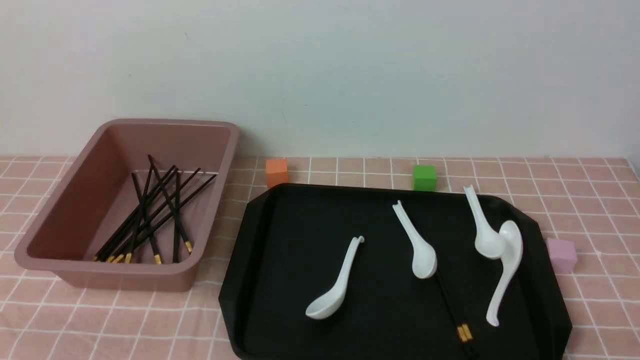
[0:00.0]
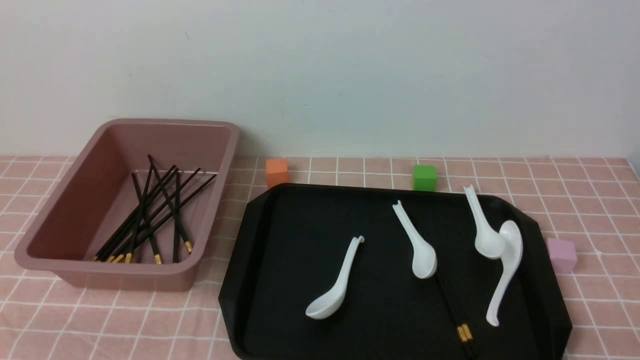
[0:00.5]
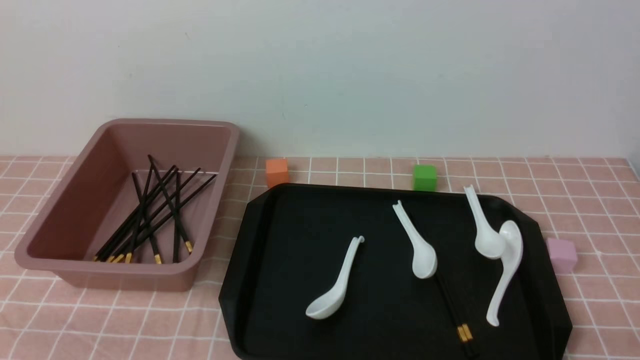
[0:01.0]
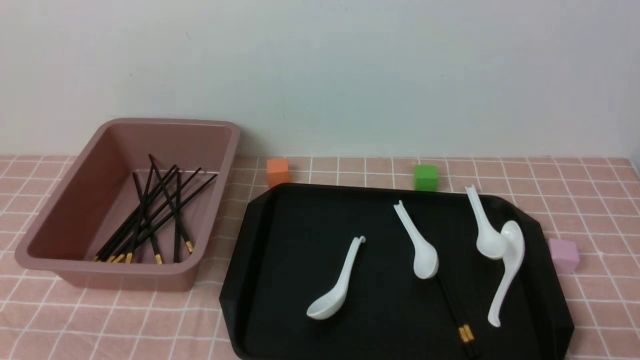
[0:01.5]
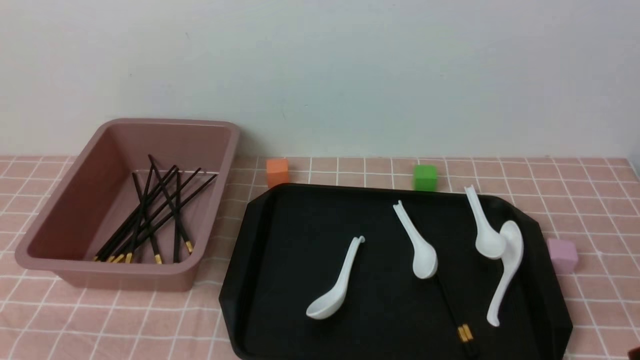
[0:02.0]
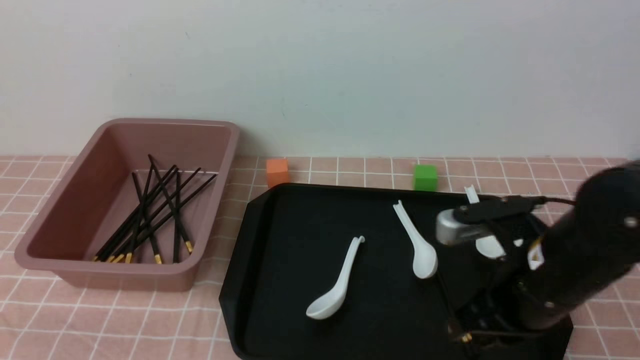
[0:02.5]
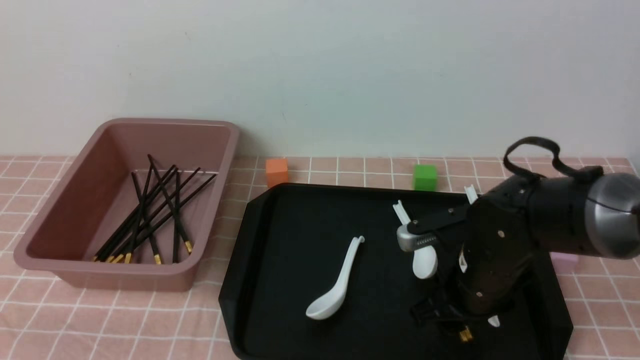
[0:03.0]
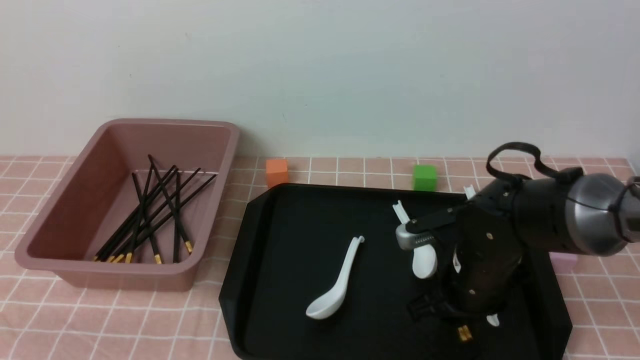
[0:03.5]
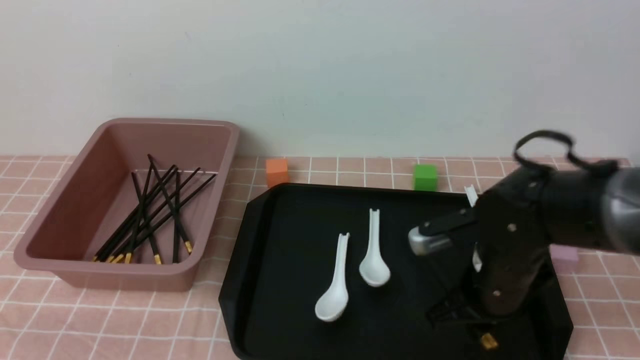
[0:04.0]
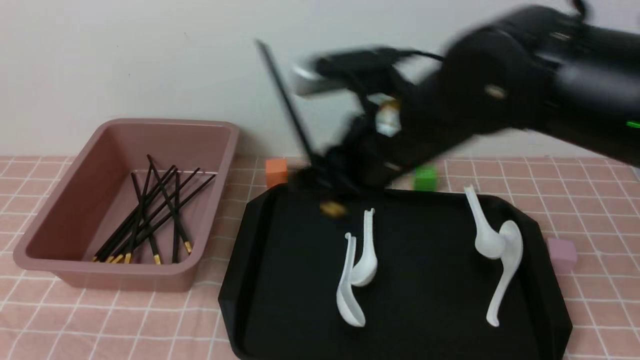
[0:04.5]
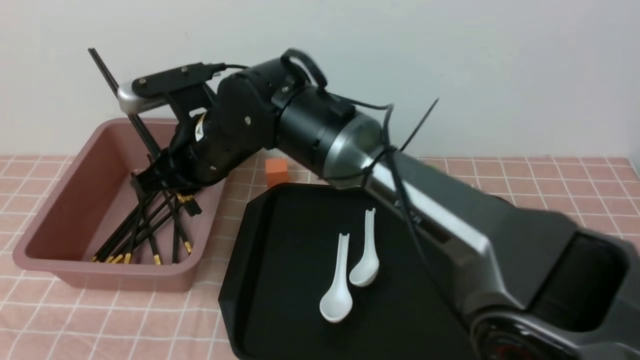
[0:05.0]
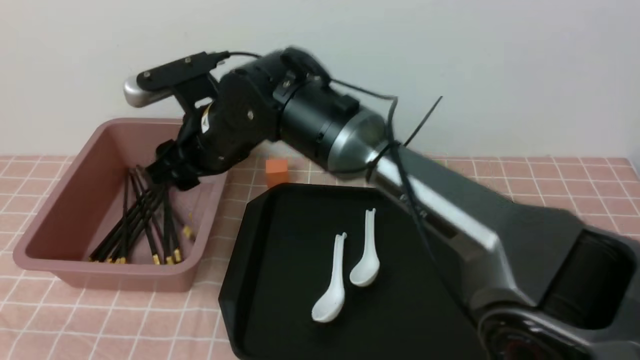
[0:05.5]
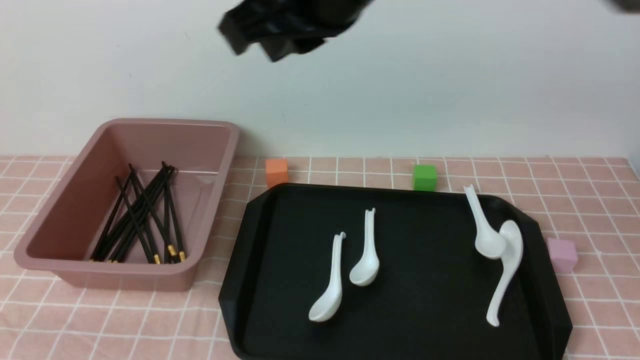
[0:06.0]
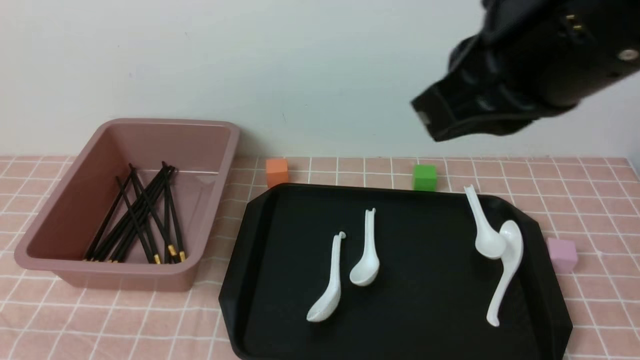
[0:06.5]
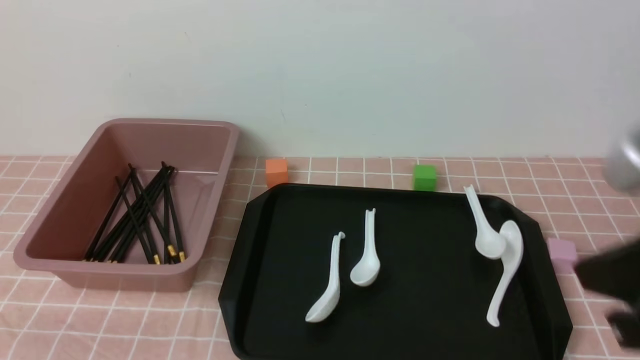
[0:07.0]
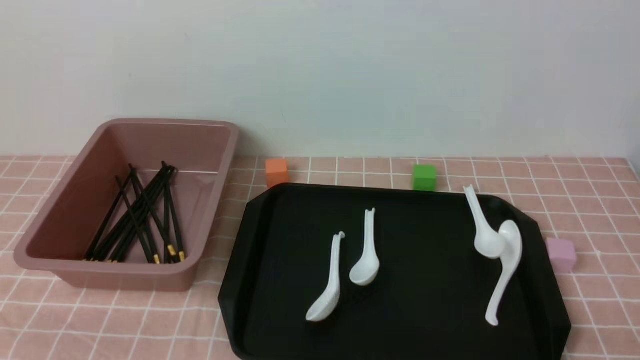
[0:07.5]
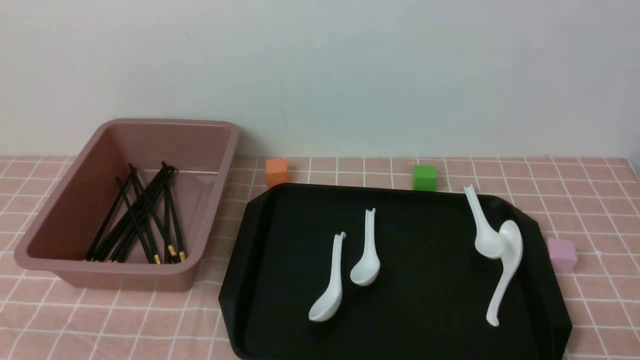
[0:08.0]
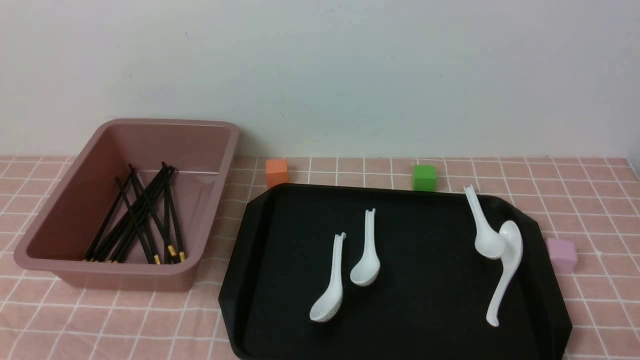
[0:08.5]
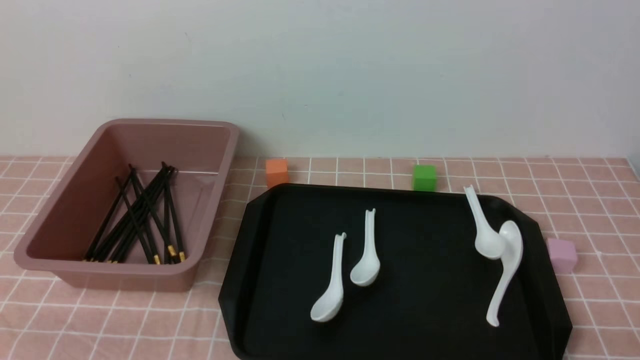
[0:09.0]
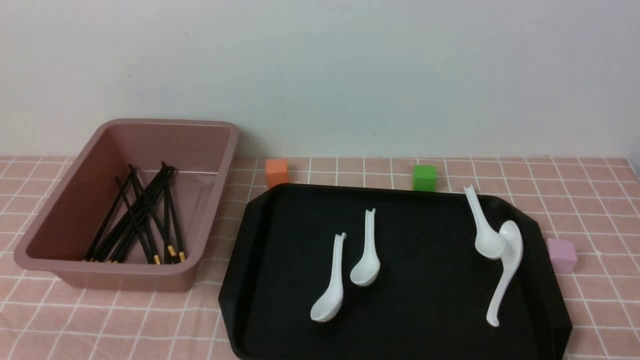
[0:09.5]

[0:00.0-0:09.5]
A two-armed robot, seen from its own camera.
Step, 0:00.0 to 0:04.0: use the right arm to grab a pair of chopsticks.
Step, 0:04.5 to 0:05.5: use the right arm to put the chopsticks into the lunch box.
0:02.0 to 0:04.0: The right gripper travels forward, to the left and downward by roughly 20 cm, and opens up.
0:04.0 to 0:05.5: The right gripper moves to the left and upward, approximately 25 cm, and opens its fingers.
0:05.5 to 0:07.5: The left gripper opens. Meanwhile the right gripper heads to the right and backward, covering roughly 50 cm, and closes its fingers.
0:07.5 to 0:09.5: Neither gripper changes place.
